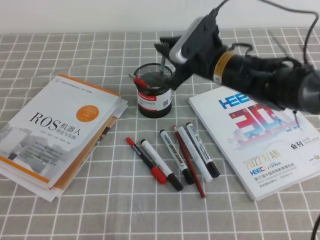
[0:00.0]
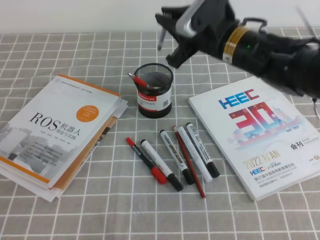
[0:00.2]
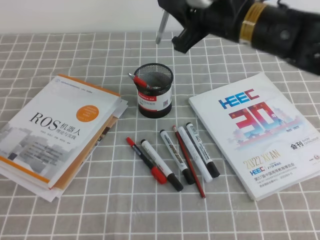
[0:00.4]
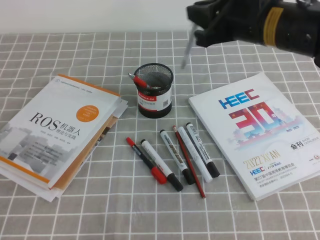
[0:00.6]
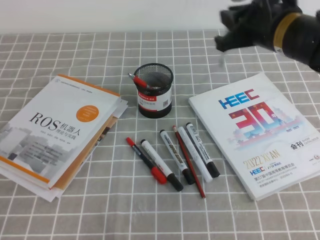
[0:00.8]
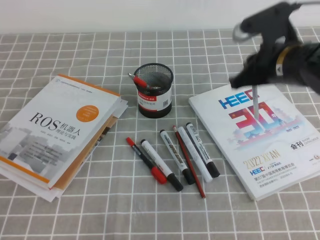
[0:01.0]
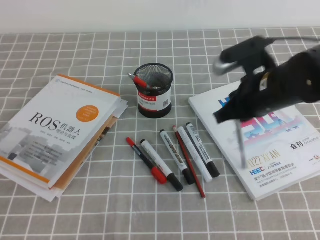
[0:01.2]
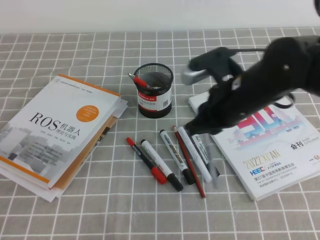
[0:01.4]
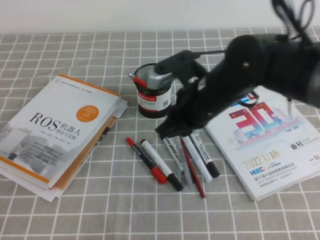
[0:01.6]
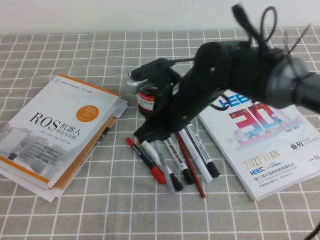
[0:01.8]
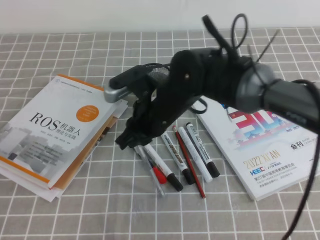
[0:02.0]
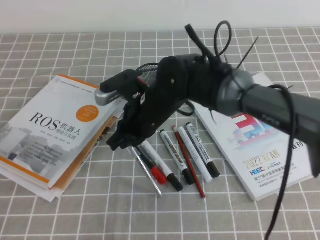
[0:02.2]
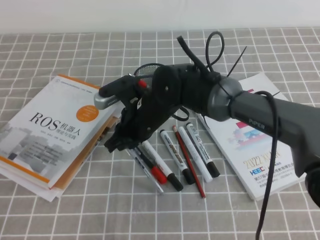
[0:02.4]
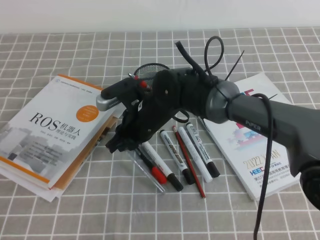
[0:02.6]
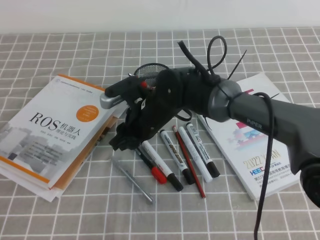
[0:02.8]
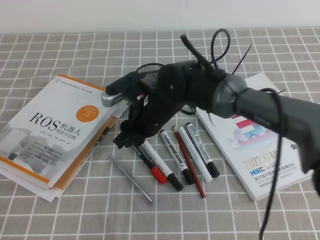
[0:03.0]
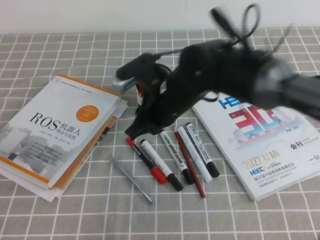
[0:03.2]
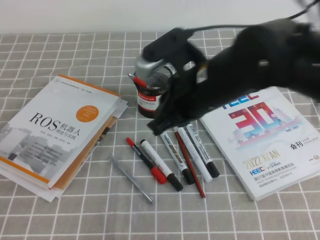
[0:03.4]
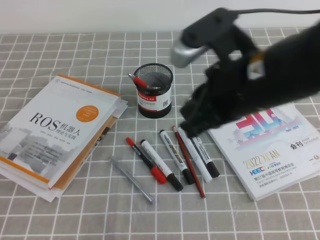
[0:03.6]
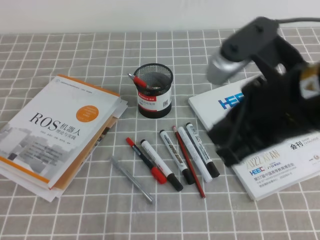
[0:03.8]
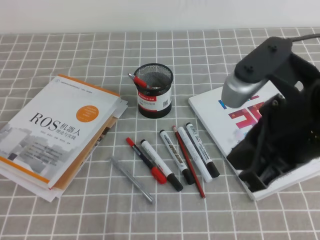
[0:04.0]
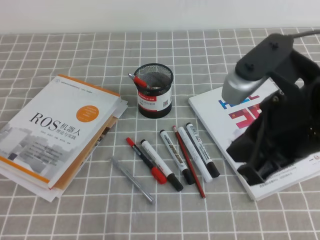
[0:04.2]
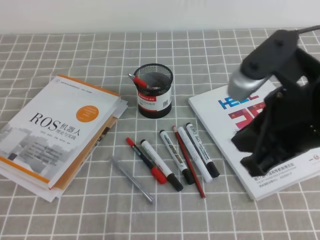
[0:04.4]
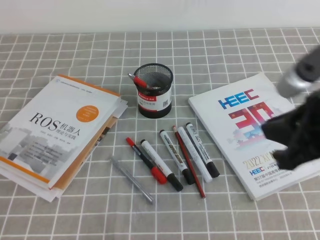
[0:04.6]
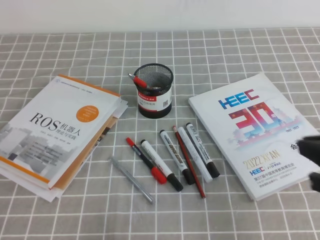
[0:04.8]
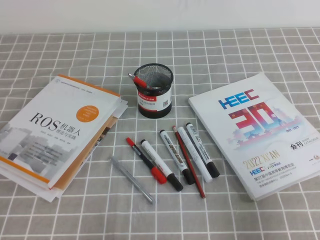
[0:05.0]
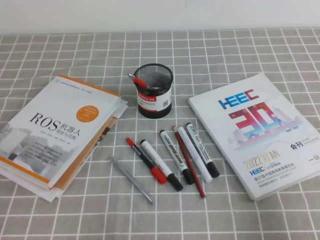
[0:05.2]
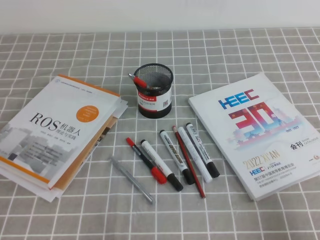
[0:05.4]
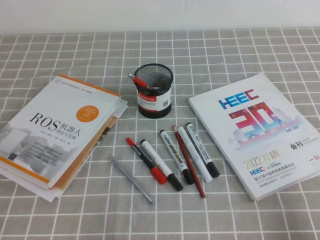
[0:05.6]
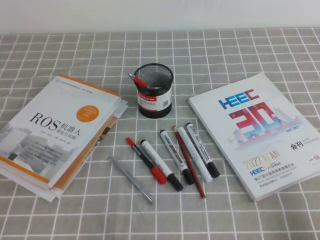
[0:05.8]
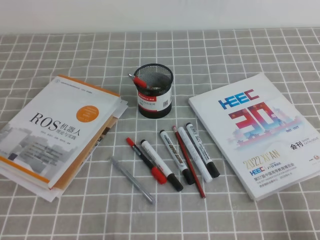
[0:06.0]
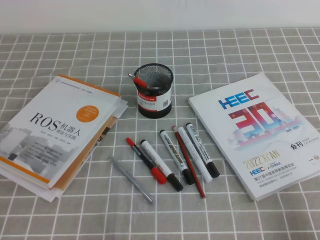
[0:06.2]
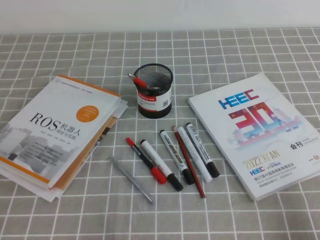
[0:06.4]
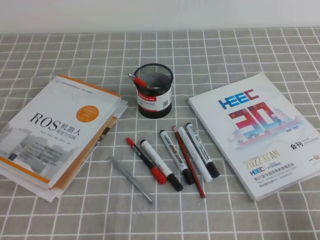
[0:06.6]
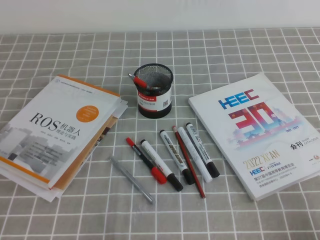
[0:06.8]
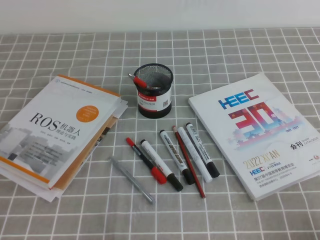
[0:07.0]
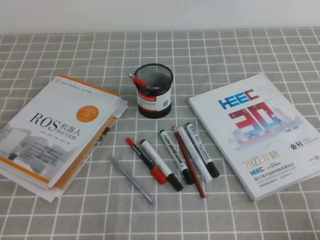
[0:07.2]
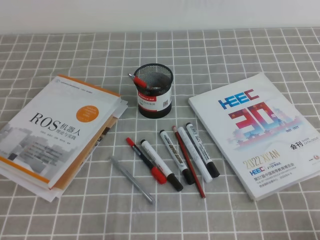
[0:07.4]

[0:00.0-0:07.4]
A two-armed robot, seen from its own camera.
Step, 0:00.0 to 0:07.4: Pick up the pen from the pen holder.
0:00.0 to 0:01.4: The right gripper shifts about 10 cm backward, and reaches about 10 cm upward, then returns.
0:01.4 to 0:03.0: The right gripper goes about 15 cm to the left and downward, and opens up.
0:03.0 to 0:04.4: The right gripper goes roughly 30 cm to the right, backward and upward, and closes up.
0:04.4 to 0:06.0: The right gripper goes approximately 25 cm downward, to the right and backward.

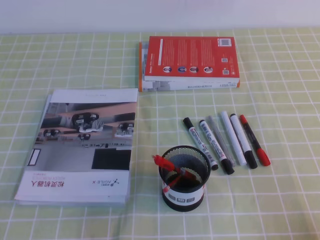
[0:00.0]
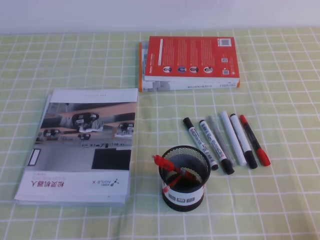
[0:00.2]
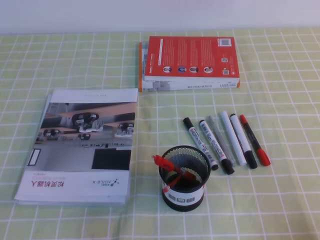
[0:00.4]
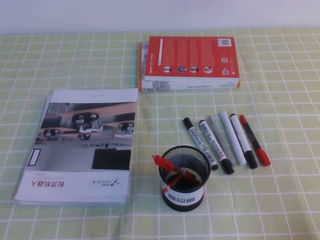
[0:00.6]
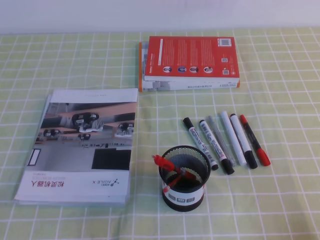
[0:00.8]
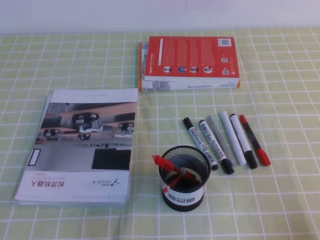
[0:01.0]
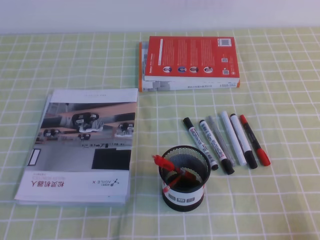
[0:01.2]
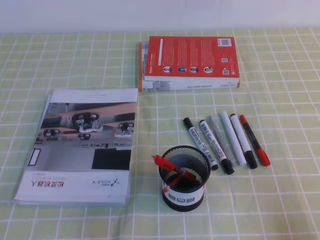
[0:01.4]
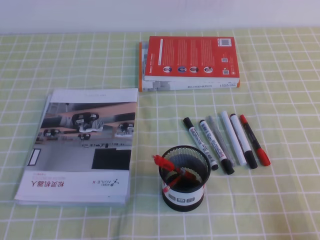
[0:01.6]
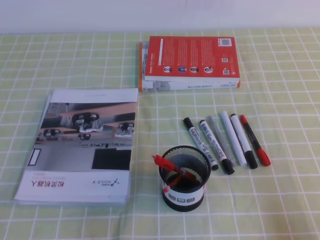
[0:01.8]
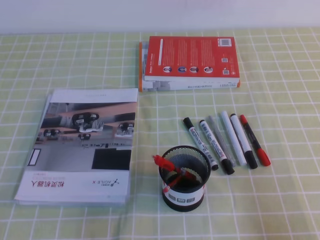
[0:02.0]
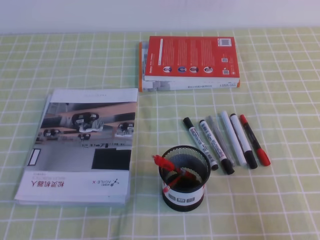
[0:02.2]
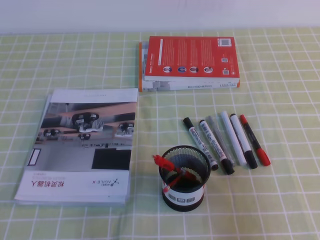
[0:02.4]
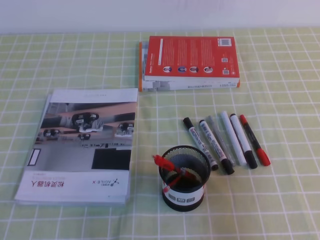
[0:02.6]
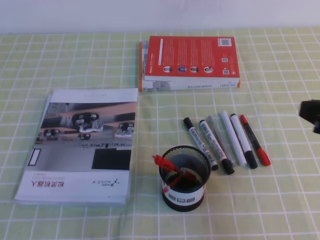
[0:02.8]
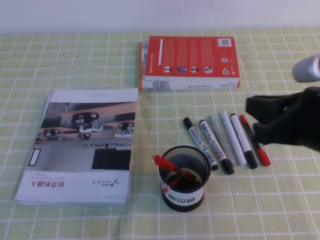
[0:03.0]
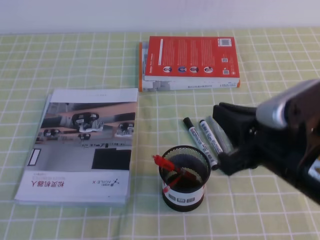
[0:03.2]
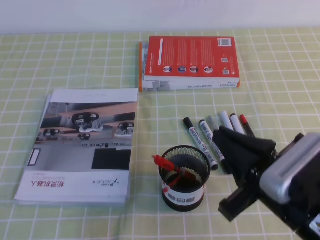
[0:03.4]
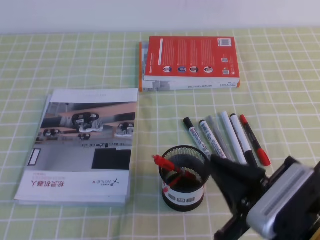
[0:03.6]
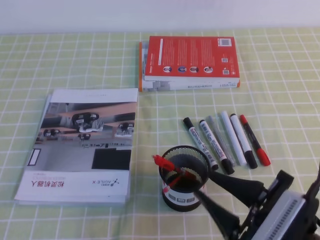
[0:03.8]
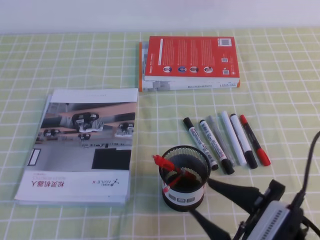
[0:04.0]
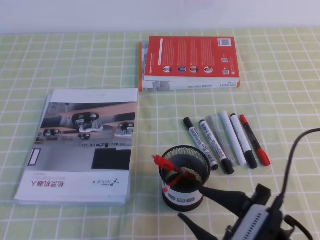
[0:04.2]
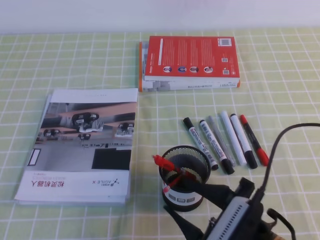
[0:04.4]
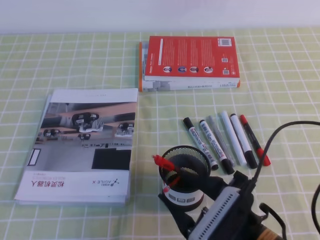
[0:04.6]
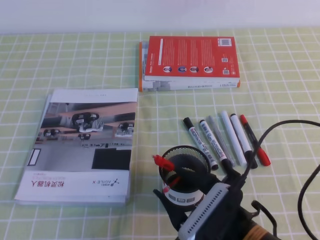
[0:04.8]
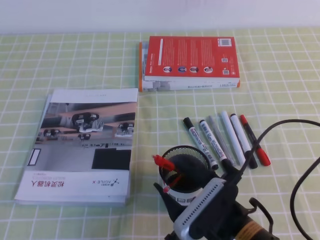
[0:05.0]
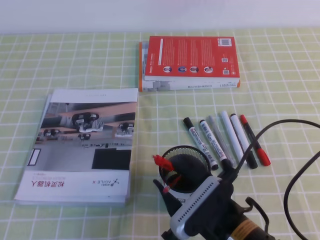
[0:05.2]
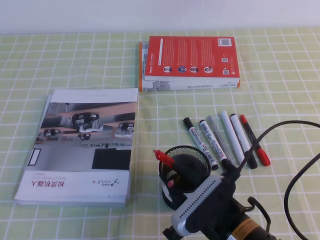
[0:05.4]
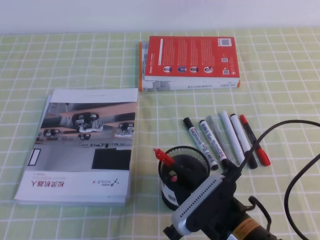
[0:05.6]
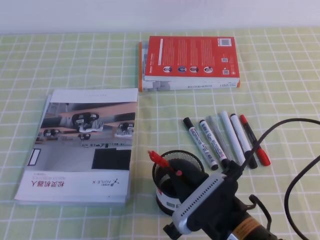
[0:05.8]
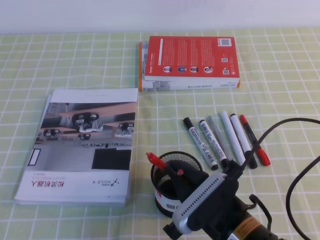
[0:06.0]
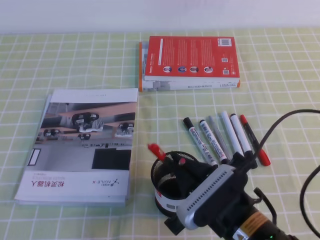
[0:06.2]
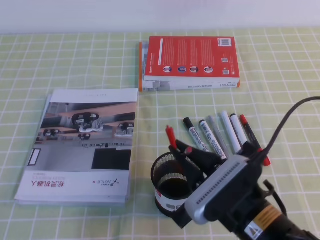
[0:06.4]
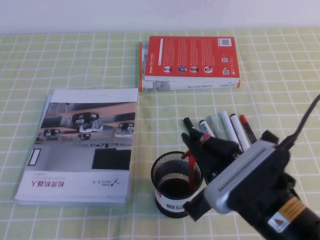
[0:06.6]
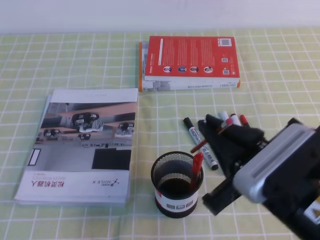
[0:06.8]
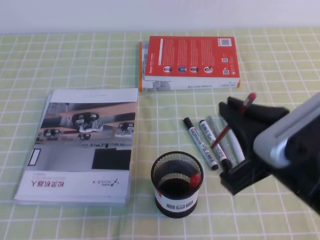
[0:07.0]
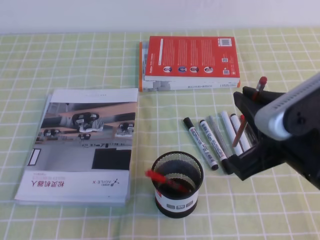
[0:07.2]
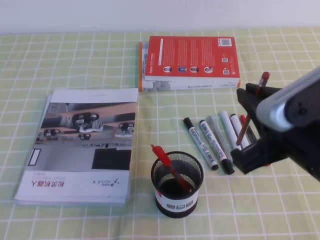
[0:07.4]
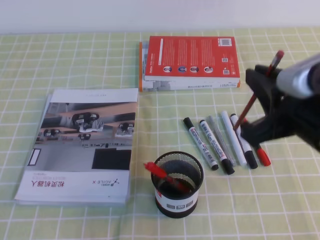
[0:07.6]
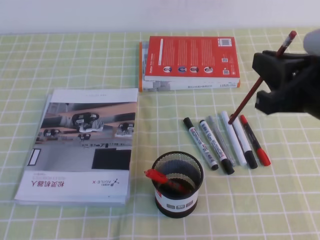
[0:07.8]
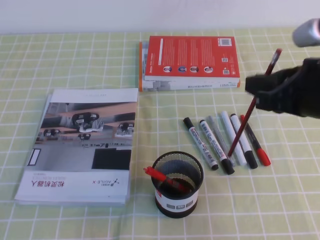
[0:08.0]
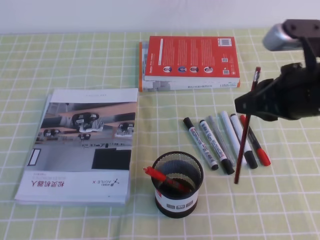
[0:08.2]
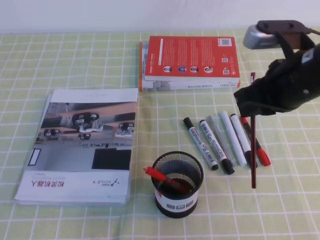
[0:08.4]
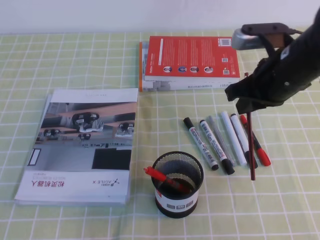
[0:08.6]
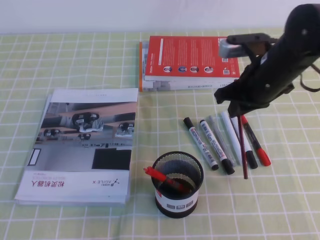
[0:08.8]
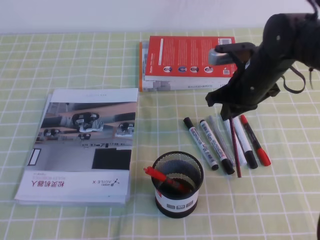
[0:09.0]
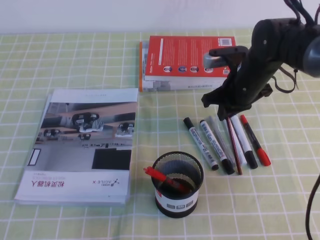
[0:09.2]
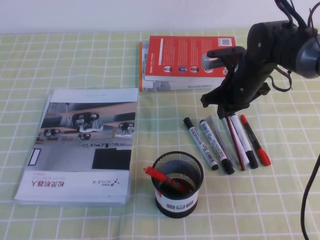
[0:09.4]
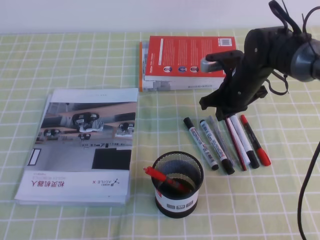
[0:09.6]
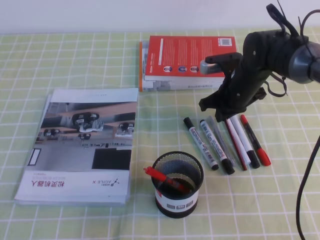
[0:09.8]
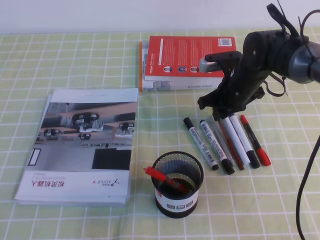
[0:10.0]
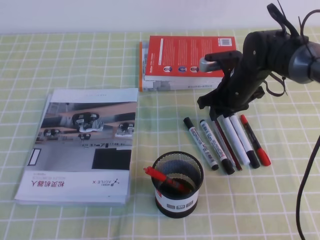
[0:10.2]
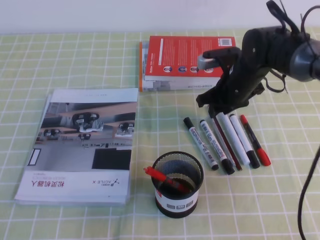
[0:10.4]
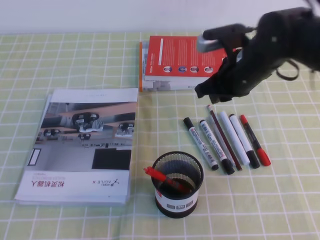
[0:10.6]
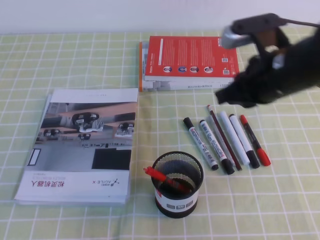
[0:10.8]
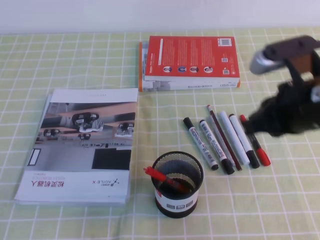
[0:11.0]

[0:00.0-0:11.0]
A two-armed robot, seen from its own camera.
0:01.6 to 0:03.2: The right gripper moves to the left, forward and upward, approximately 20 cm.
0:03.2 to 0:04.8: The right gripper moves downward and to the left, some 15 cm, and opens.
0:04.8 to 0:06.2: The right gripper closes its fingers.
0:06.2 to 0:07.8: The right gripper travels upward and to the right by roughly 20 cm.
0:07.8 to 0:09.4: The right gripper goes roughly 25 cm forward and downward.
0:09.4 to 0:11.0: The right gripper shifts some 20 cm backward and upward, and opens and closes again.

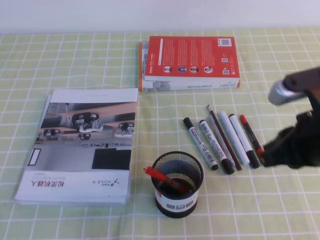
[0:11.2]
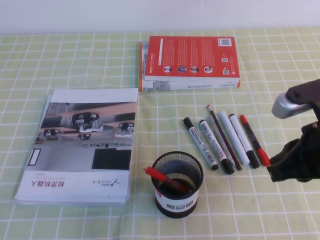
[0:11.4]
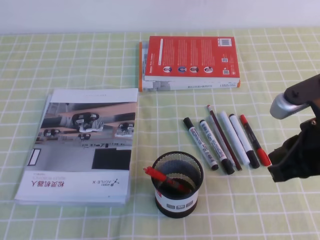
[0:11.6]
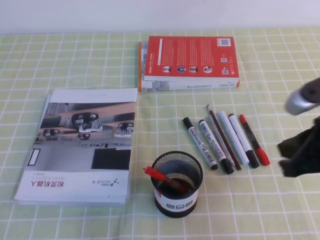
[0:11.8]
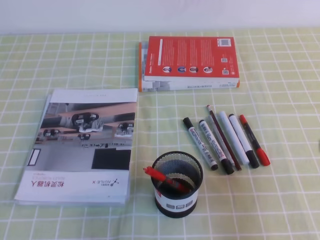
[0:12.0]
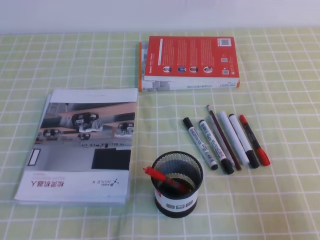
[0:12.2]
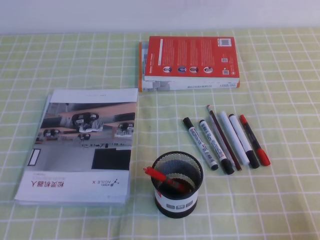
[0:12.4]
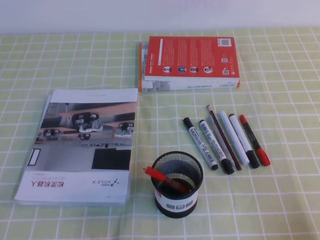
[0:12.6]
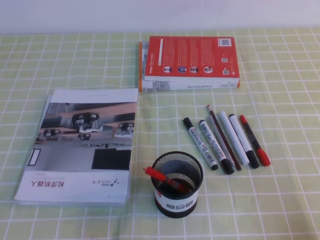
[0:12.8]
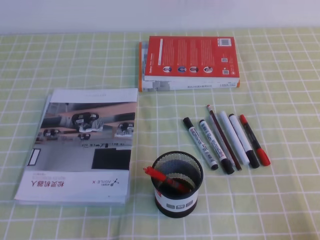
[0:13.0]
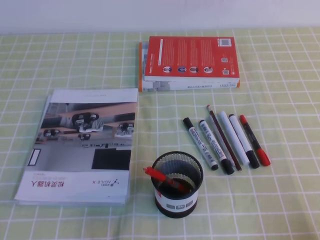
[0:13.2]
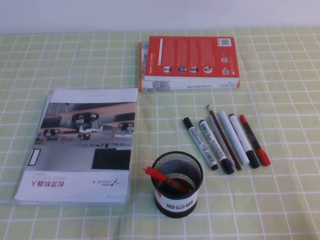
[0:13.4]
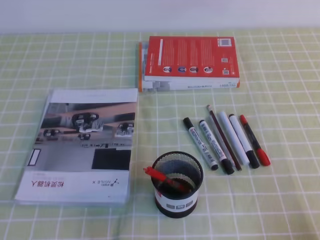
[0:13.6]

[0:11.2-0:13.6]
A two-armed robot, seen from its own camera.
Step, 0:11.2 to 0:13.6: Pick up the pen from the pen holder.
0:11.2 to 0:12.4: The right gripper heads backward, to the right and downward, covering roughly 20 cm.
